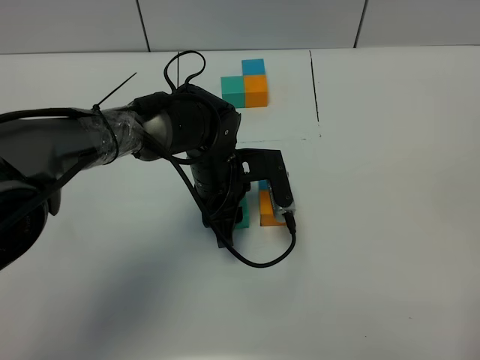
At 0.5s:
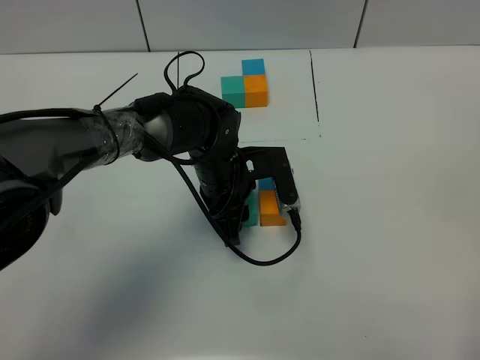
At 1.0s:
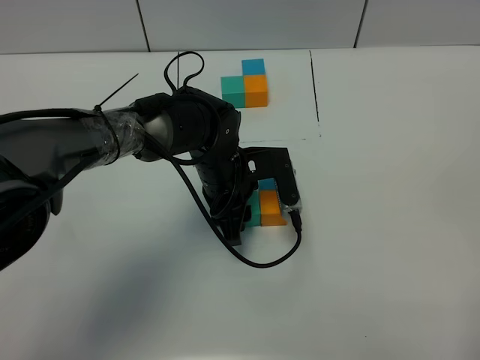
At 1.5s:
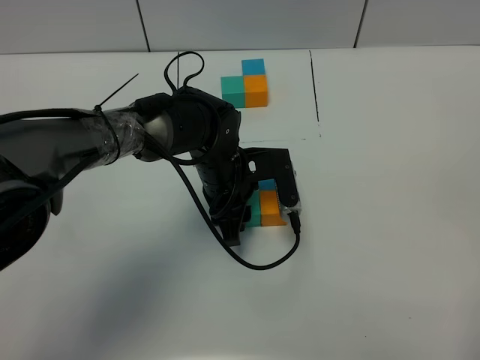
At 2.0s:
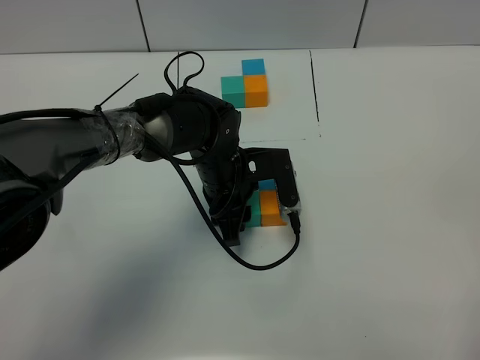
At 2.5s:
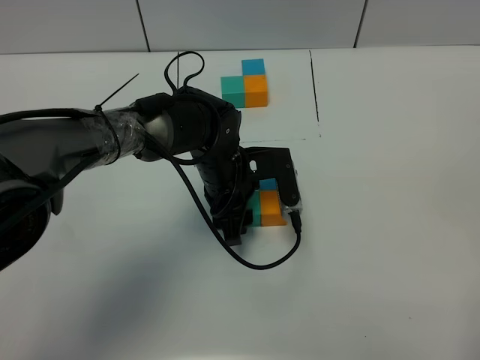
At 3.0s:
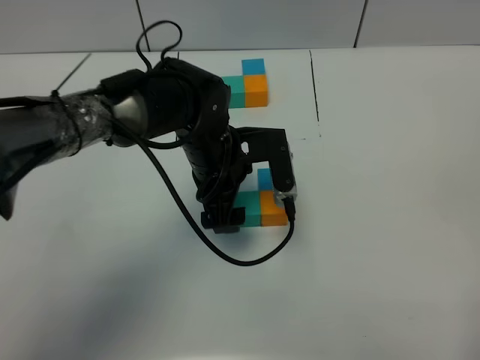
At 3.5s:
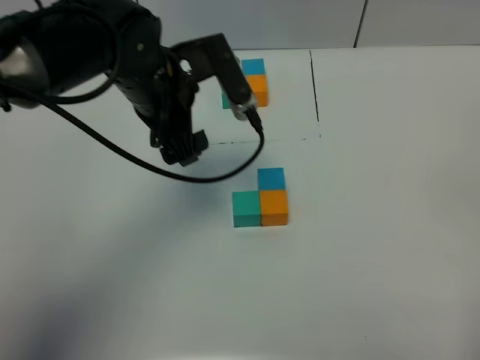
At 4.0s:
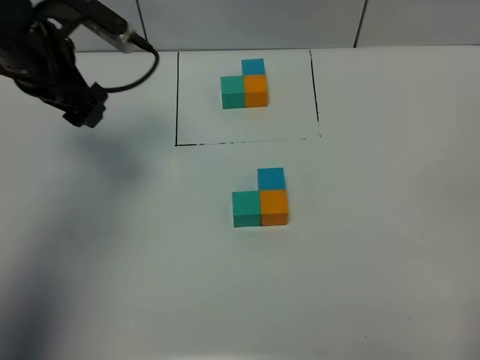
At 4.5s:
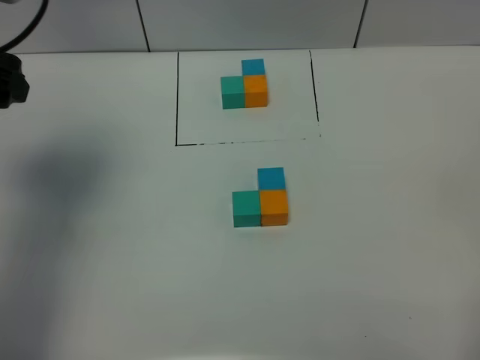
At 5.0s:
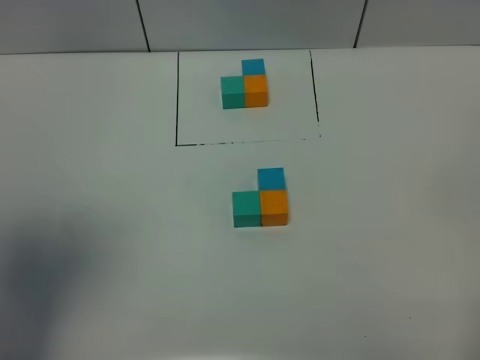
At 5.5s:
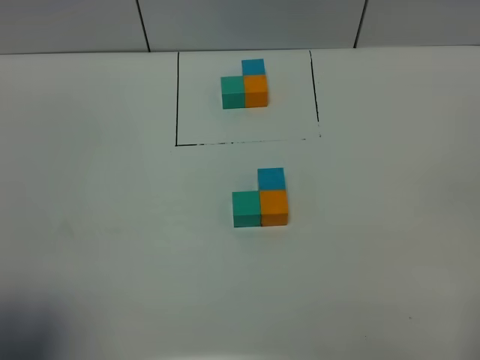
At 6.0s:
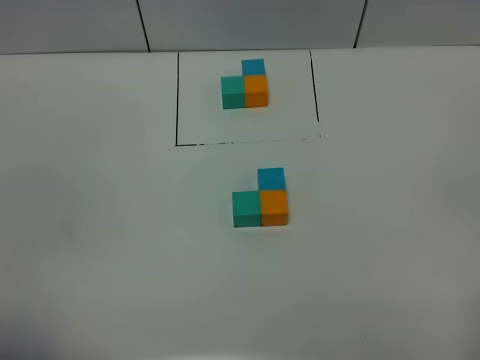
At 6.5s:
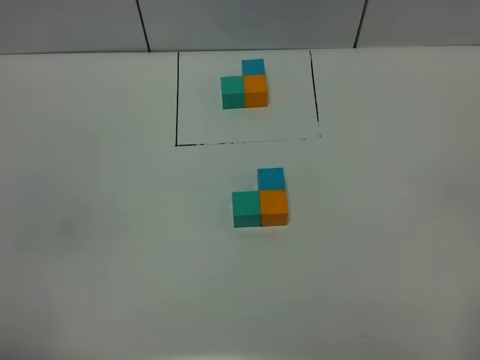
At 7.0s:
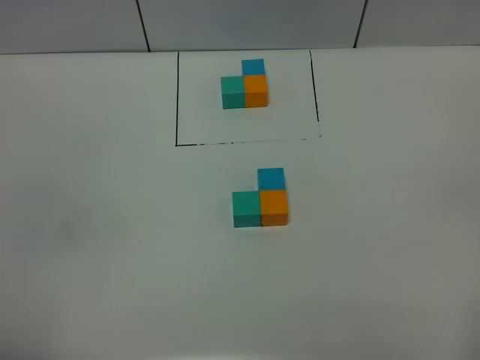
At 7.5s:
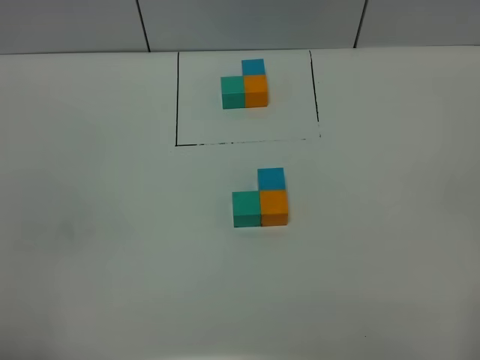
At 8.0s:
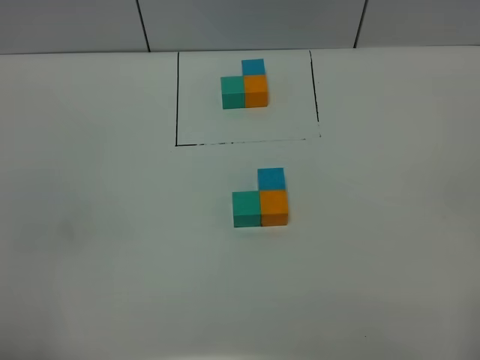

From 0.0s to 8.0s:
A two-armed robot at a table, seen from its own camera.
Task of the whole recording: According to the building block template in front, assemble the scattered blocks together.
Step, from 0.0s to 2.5s: Put the green build block on the left of the orange build block.
From 0.0s to 2.0s: The grippers move only a little.
From 2.0s to 4.0s: The left gripper goes roughly 25 cm to the left and upward, and opens.
From 4.0s to 6.0s: The left gripper heads backward, covering some 35 cm.

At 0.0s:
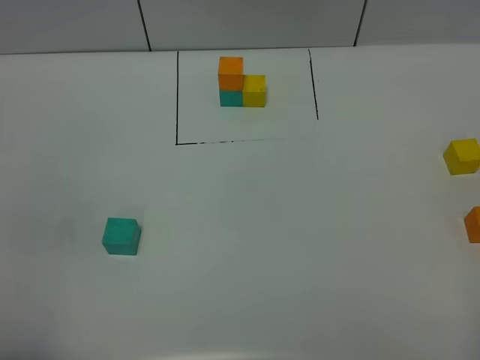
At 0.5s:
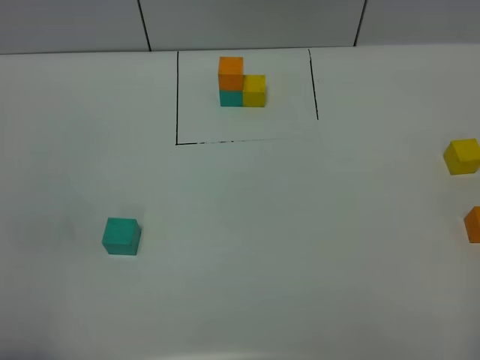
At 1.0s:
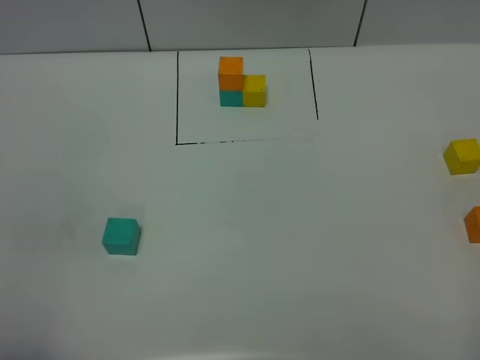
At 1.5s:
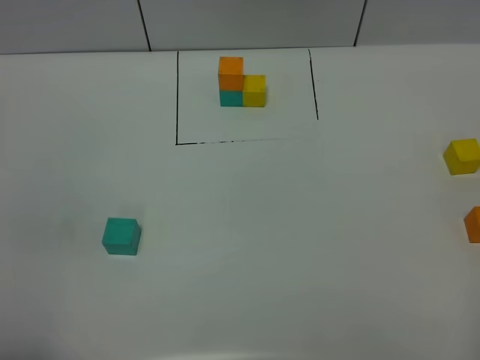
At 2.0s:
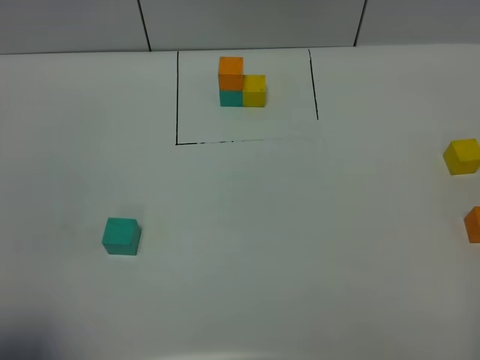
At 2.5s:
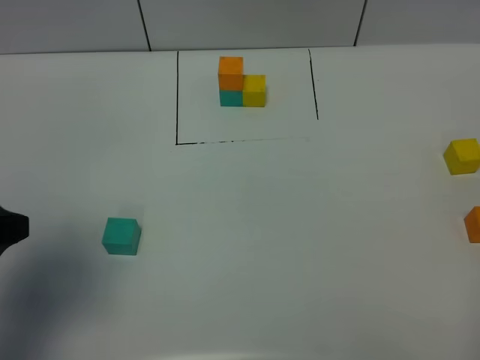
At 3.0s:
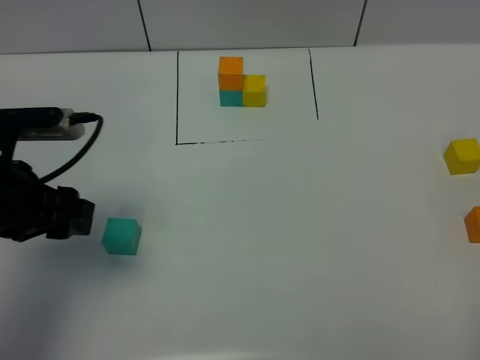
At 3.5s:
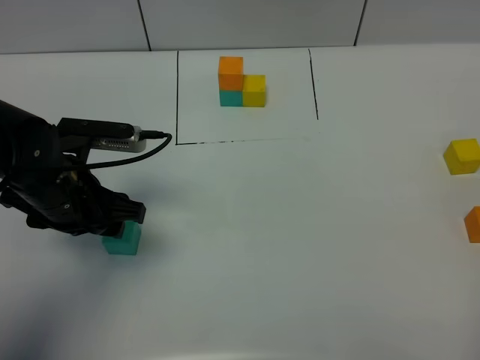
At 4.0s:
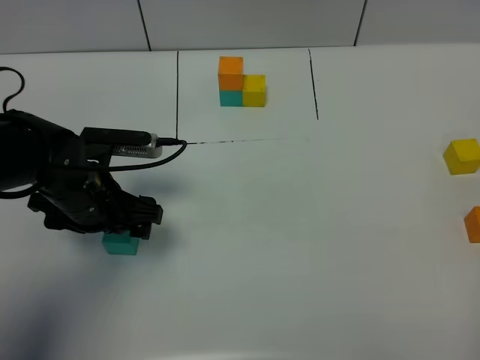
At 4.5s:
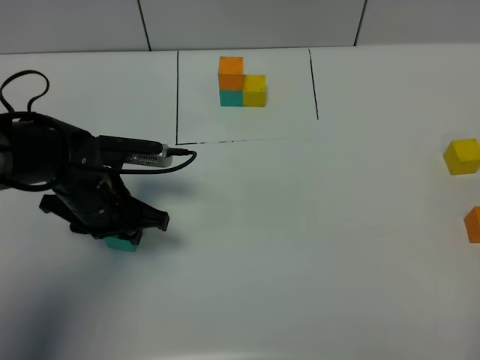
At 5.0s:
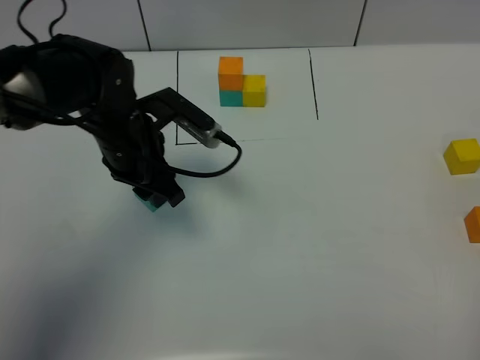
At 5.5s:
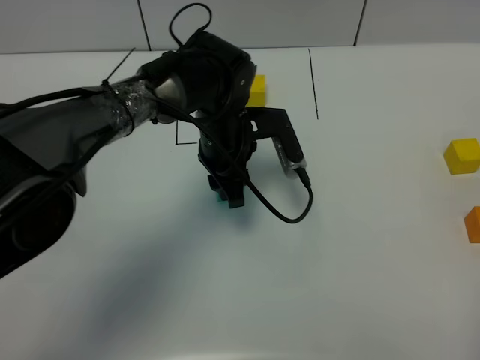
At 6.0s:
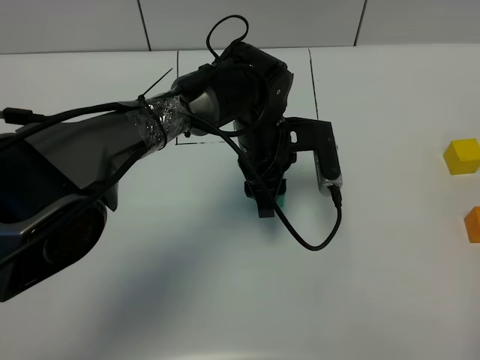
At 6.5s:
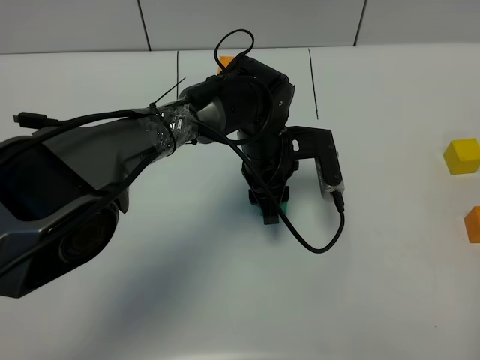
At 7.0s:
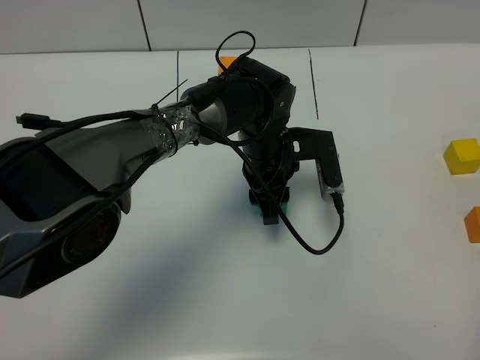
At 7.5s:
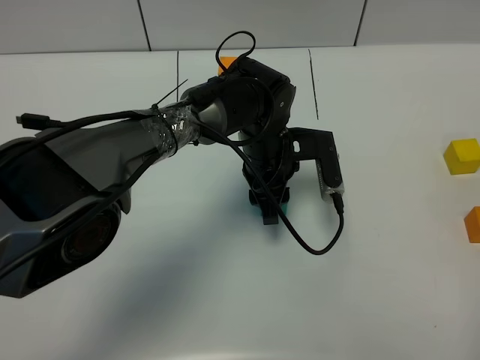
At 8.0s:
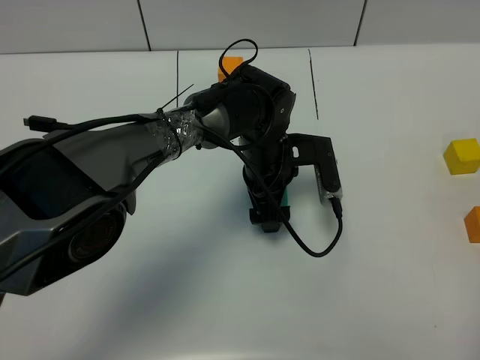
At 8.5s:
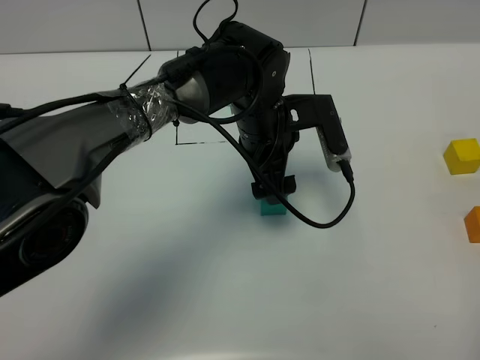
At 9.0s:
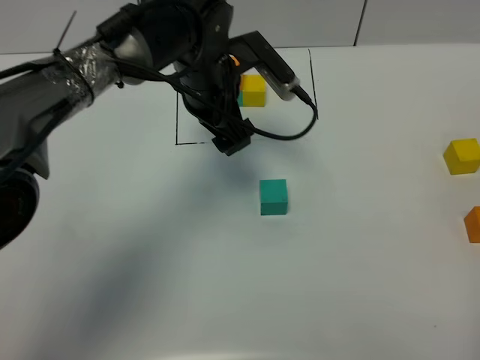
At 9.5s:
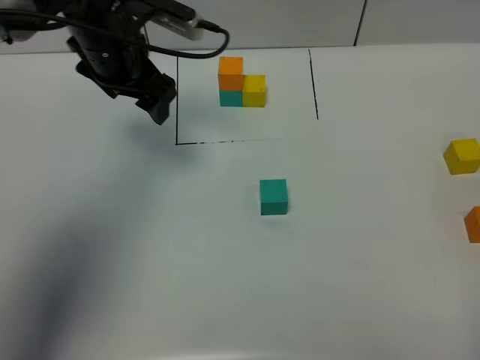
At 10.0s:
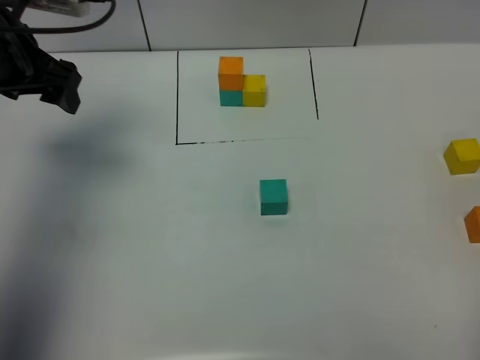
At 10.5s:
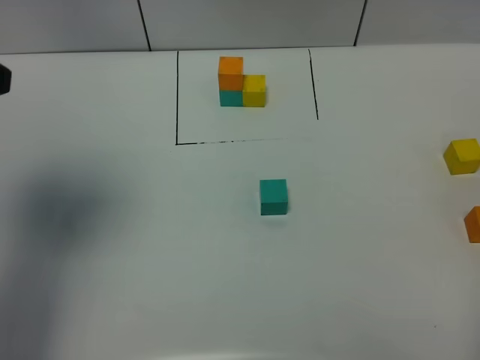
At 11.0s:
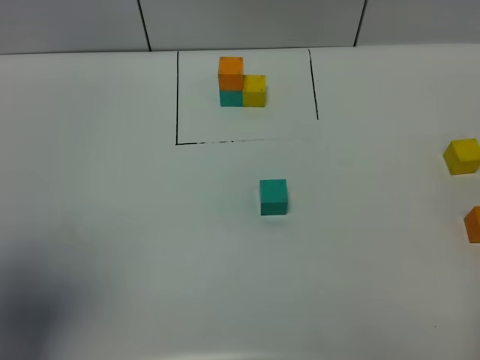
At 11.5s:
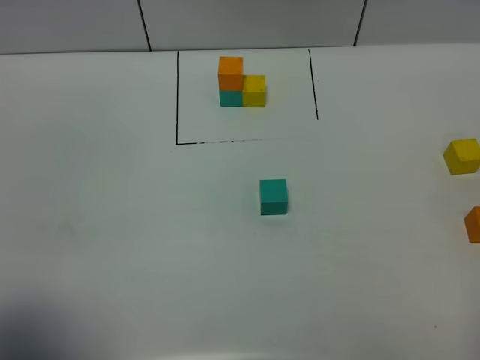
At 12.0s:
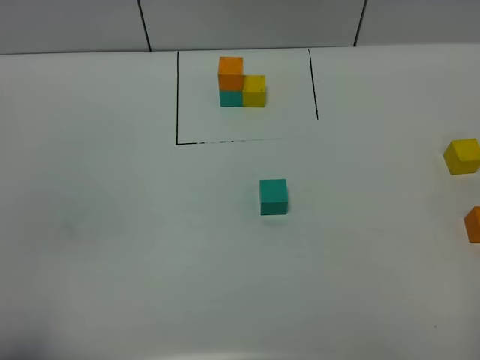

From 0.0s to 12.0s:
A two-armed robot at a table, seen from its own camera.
Task of the whole recording: According to the building block template in front, assemble the scattered blocks together.
Step, from 0.0s to 7.5s: Put the green build block in the center of the table.
From 2.0s to 4.0s: The left gripper shifts approximately 30 cm forward, downward and to the right, and opens.
From 4.0s to 6.0s: The left gripper shifts about 20 cm to the right, and closes.
From 6.0s to 8.0s: The left gripper opens up.
From 8.0s to 10.0s: The left gripper goes approximately 35 cm to the left and upward.
From 10.0s to 12.0s: The left gripper is displaced backward by roughly 35 cm.

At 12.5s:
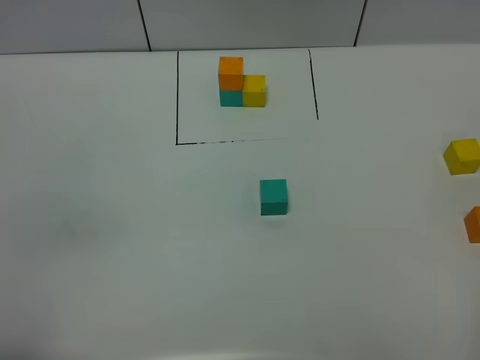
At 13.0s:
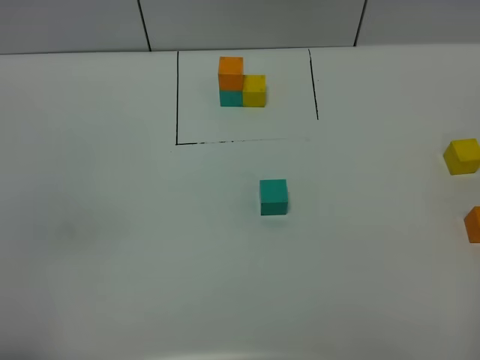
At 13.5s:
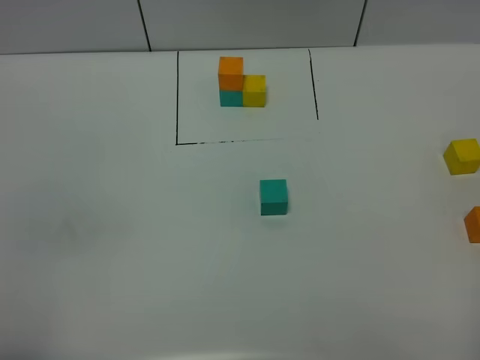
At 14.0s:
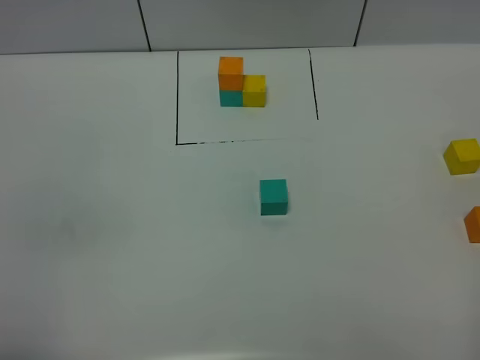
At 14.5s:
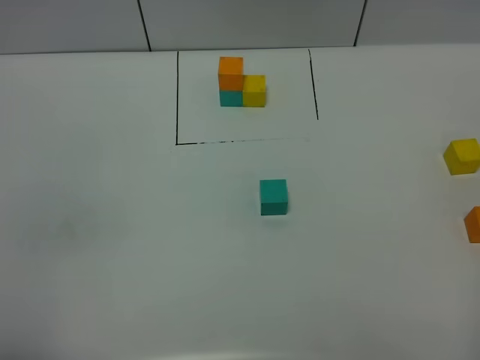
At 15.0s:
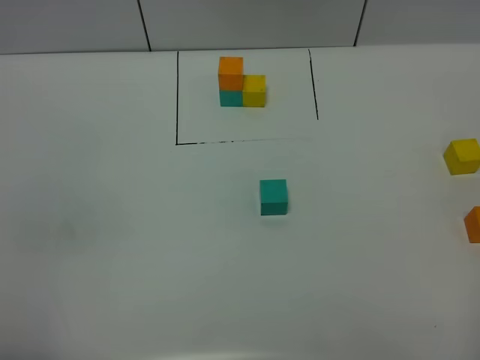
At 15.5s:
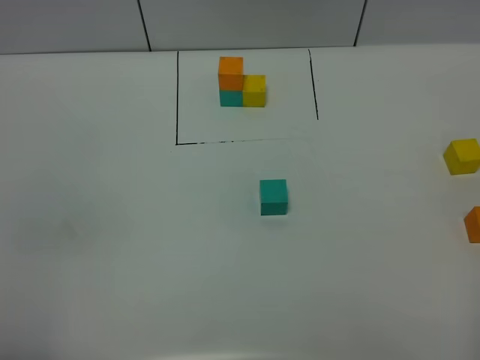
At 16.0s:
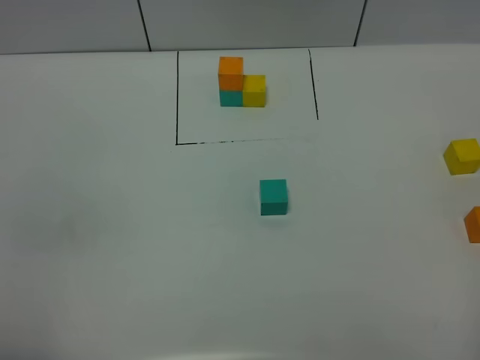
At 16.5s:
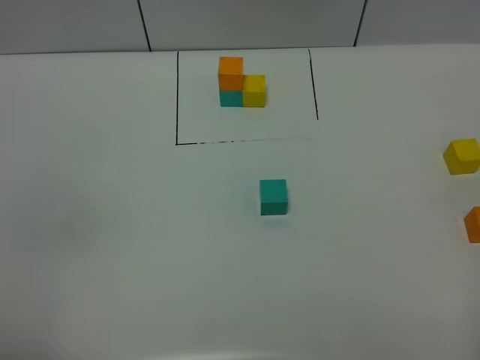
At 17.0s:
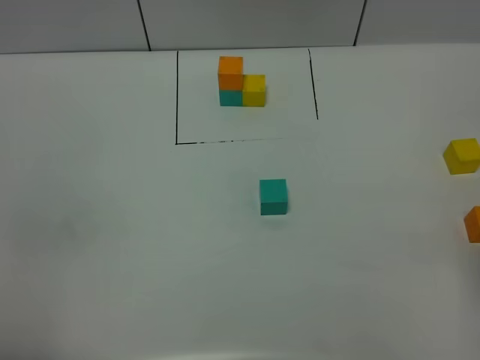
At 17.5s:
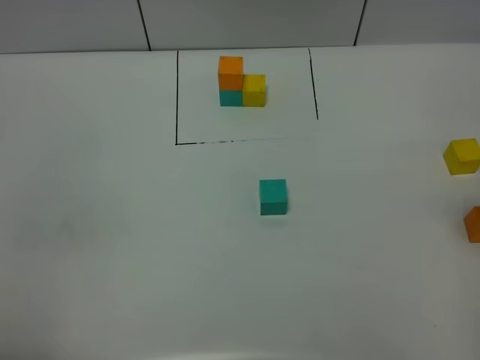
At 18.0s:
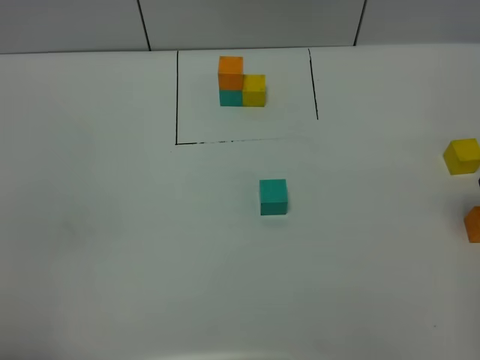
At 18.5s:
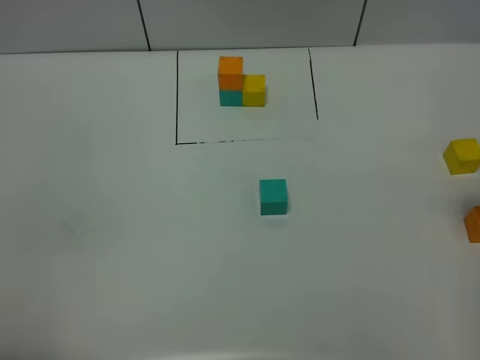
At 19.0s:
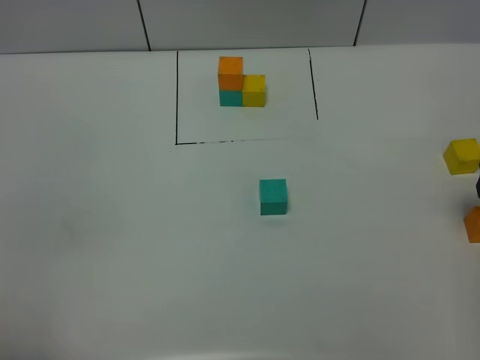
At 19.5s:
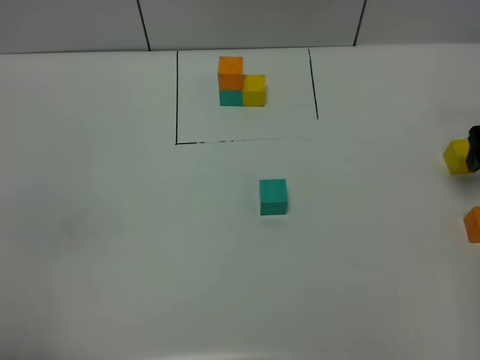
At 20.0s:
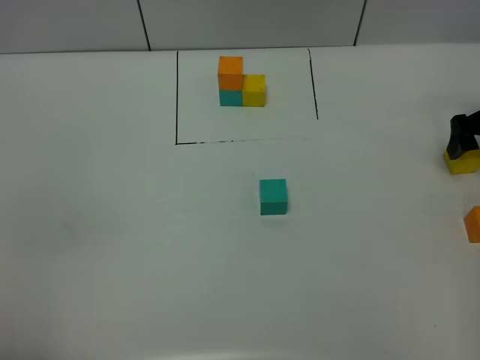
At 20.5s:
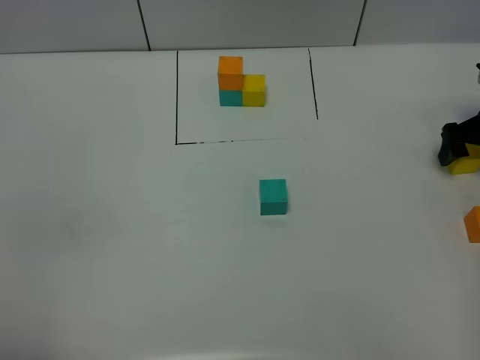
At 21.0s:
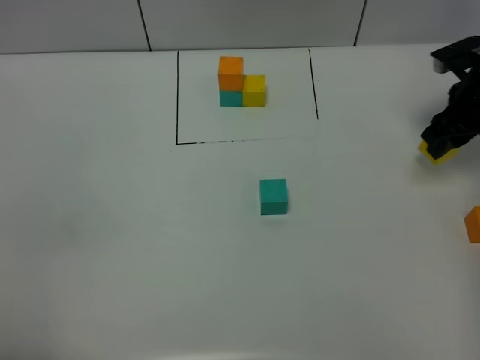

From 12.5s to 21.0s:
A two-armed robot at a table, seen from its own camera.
Task of the whole recording: According to the building block template in front, assemble the scattered blocks together.
From 14.5s to 16.5s: Both grippers stay put.
From 19.0s to 21.0s: The right gripper heads forward and to the left, covering approximately 15 cm, and closes its fingers.
